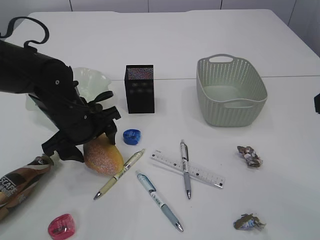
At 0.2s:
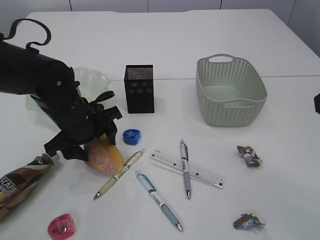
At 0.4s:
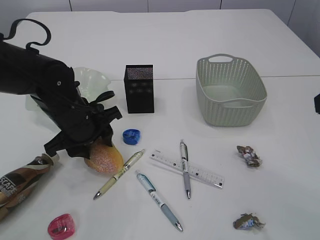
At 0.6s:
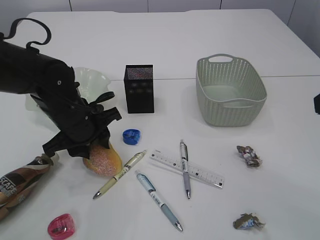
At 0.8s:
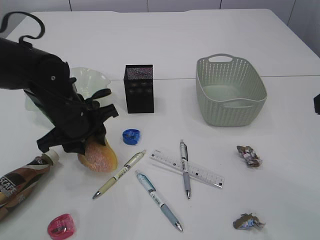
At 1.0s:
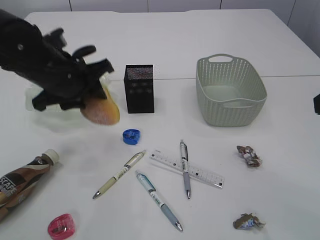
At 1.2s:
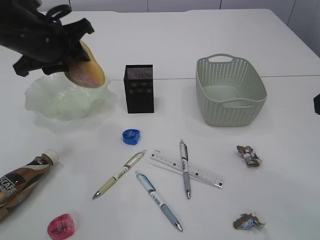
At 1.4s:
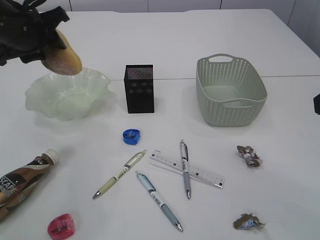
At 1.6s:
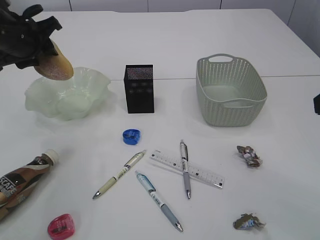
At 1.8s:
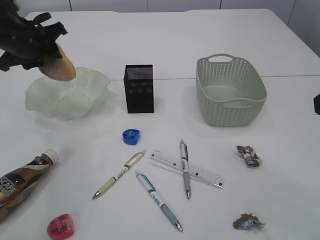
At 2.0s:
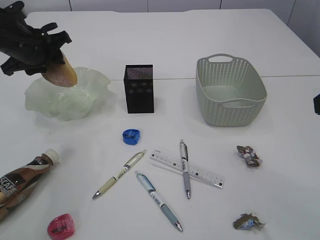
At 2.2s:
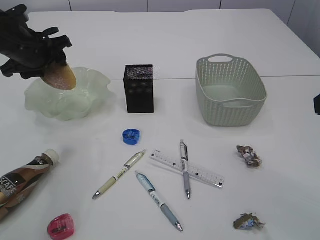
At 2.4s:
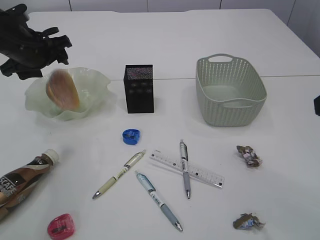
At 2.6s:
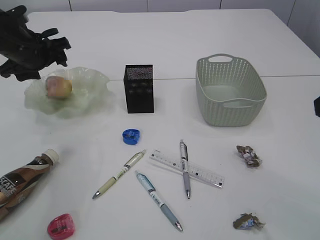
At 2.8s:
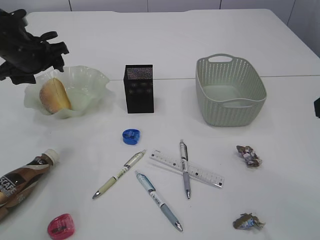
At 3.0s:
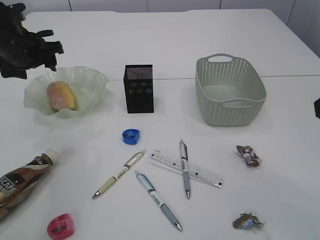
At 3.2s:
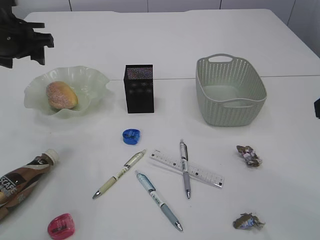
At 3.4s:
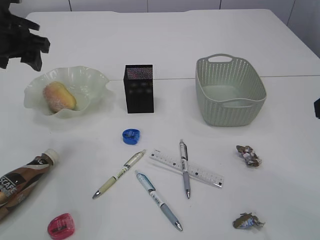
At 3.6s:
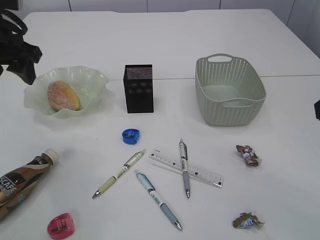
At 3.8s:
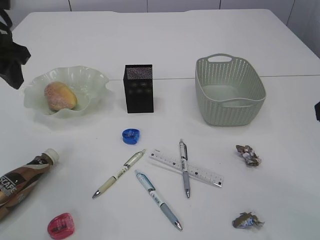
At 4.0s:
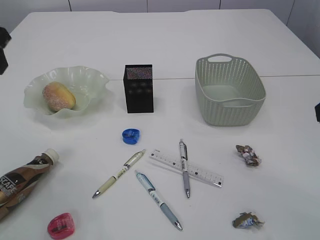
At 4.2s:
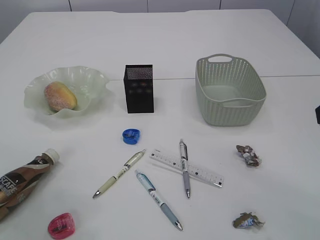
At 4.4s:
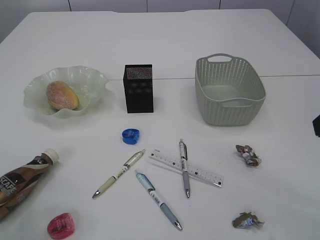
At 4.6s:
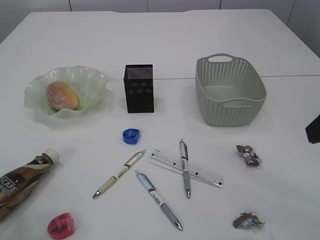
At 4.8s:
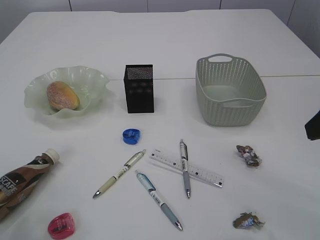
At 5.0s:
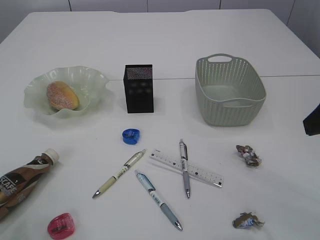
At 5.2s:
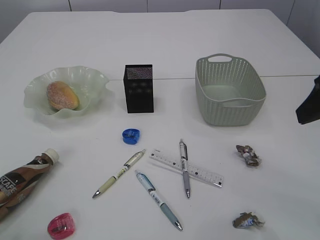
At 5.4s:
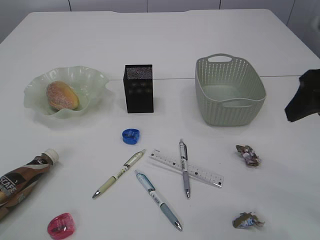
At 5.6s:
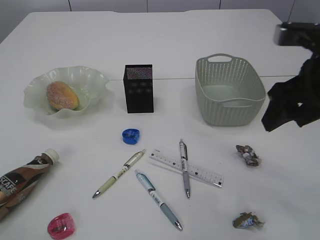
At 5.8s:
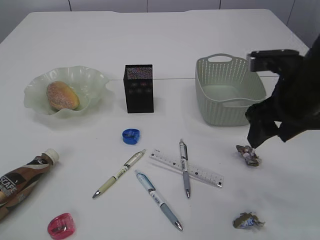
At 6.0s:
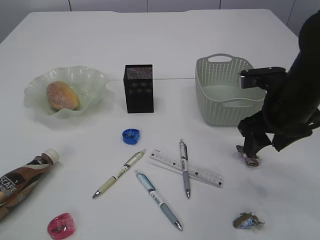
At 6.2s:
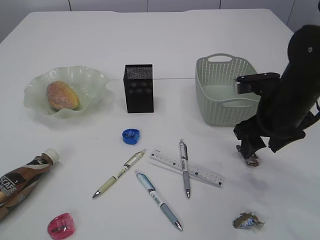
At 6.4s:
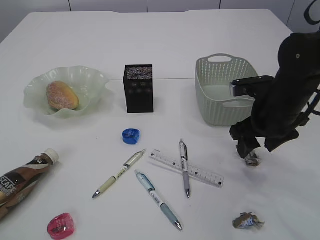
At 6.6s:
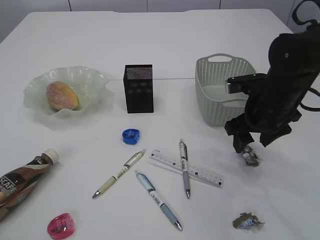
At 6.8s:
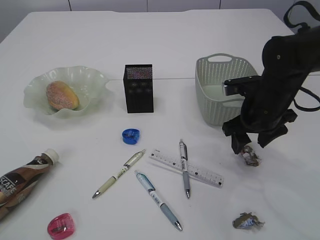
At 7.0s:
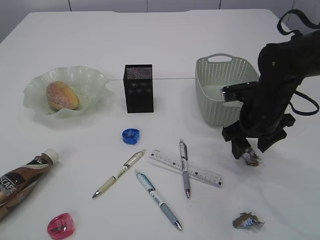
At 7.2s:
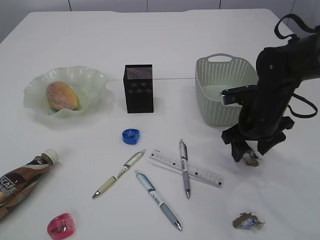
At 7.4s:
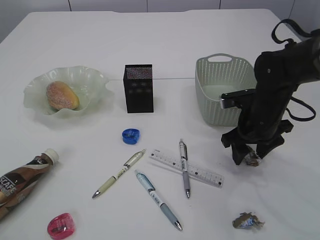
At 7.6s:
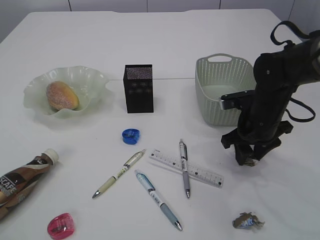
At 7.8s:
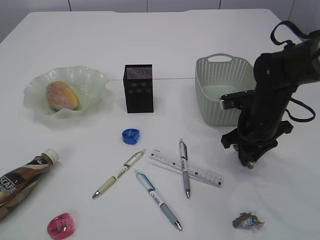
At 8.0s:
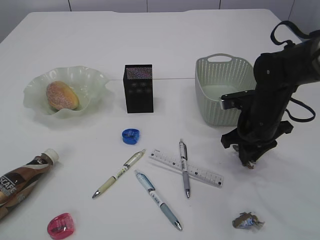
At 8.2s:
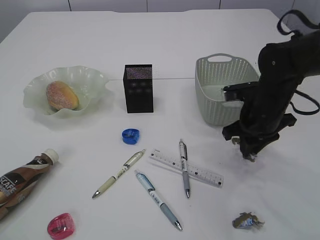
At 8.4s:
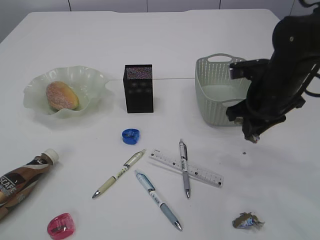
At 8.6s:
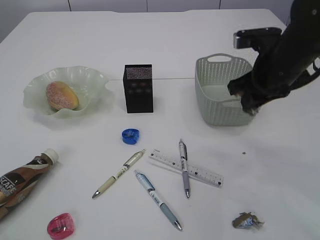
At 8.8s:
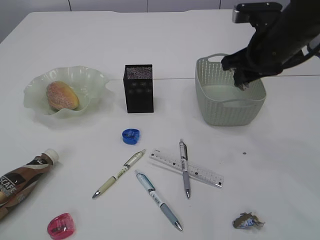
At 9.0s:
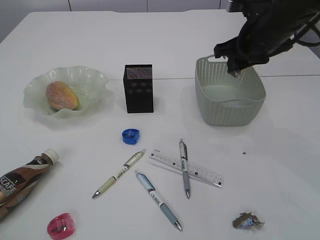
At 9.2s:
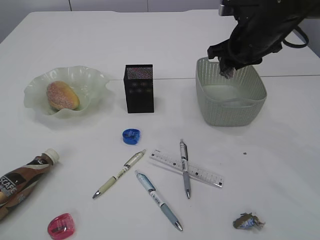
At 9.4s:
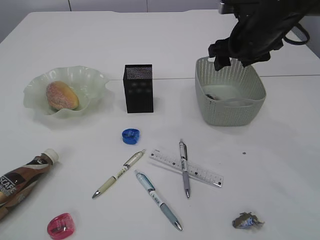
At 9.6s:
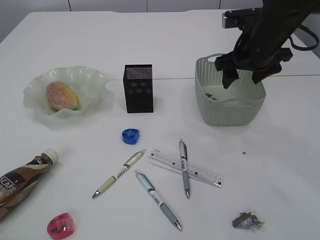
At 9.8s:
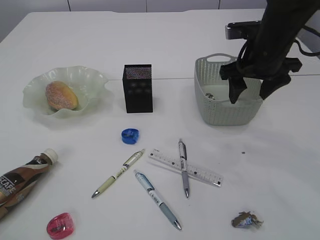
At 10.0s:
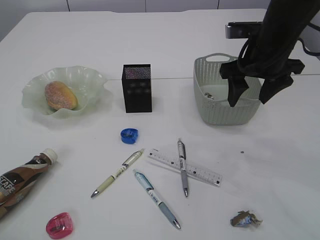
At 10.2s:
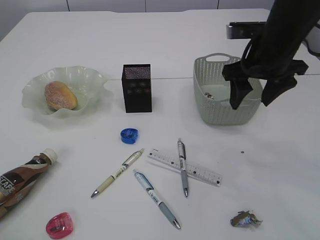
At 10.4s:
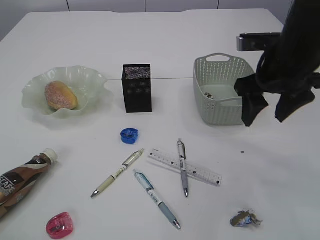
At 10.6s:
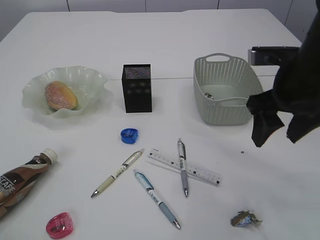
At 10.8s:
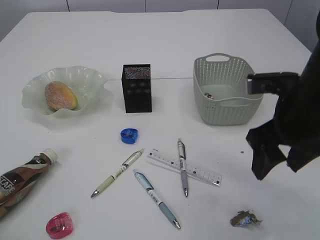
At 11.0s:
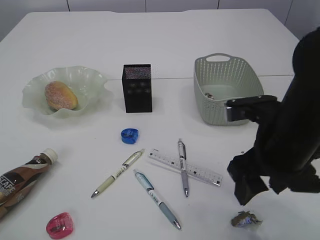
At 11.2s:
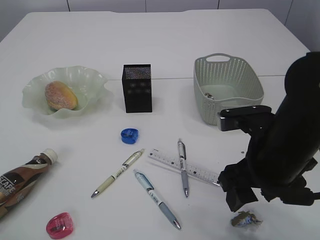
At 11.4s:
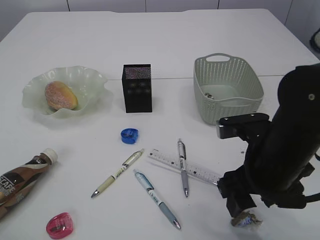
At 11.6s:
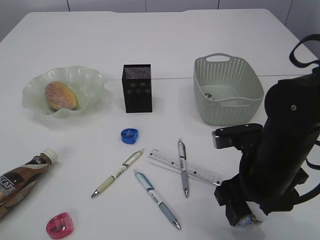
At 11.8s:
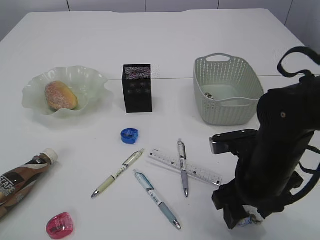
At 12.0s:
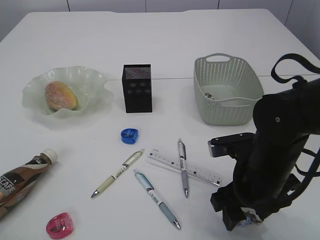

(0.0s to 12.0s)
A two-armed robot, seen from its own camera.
Step, 1.2s - 2.6s: place the bread in the plate.
Step, 2.8s - 8.2s: Pick up the waste paper.
Step, 8.4s - 9.2s: Place the waste paper in the basket.
0.0s - 1.6s: The left gripper is displaced upward, to the left and forward by approximately 15 cm, and closes its fingers.
1.6s - 3.0s: The left gripper opens up.
3.0s - 4.4s: The left gripper moves backward and upward, some 25 cm, and closes up.
4.4s - 6.0s: The right gripper is displaced forward, downward and to the left by approximately 15 cm, while the left gripper shifts some 10 cm backward.
6.0s - 7.6s: The right gripper travels downward and forward by approximately 10 cm.
7.6s - 9.0s: The right gripper travels upward by roughly 15 cm, and closes.
9.0s - 10.4s: The right gripper is displaced backward by approximately 5 cm, and opens its fingers.
10.4s - 12.0s: The right gripper heads downward, backward and to the left, covering about 15 cm.

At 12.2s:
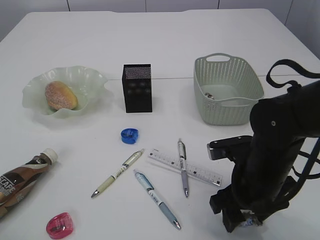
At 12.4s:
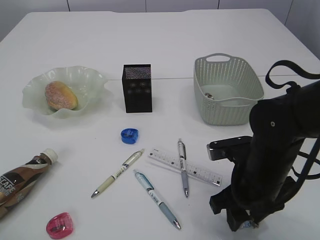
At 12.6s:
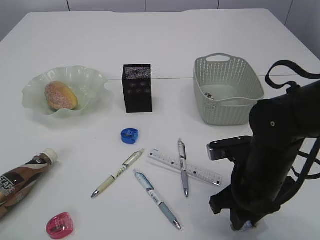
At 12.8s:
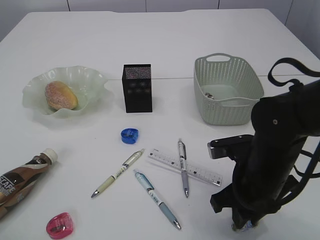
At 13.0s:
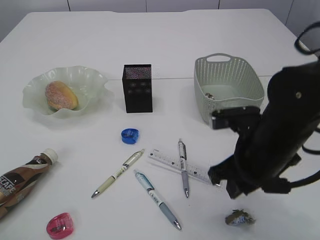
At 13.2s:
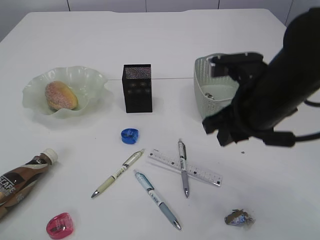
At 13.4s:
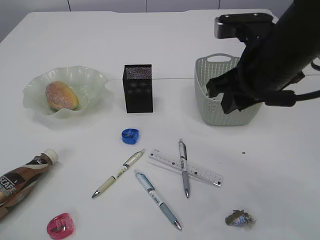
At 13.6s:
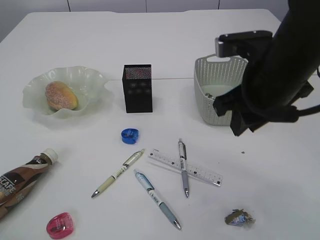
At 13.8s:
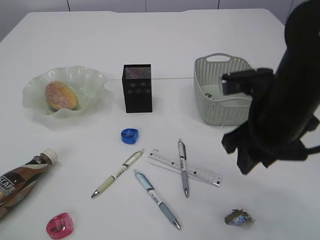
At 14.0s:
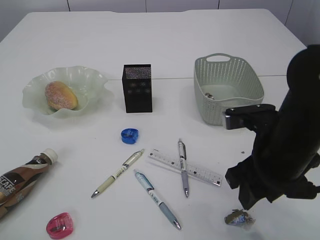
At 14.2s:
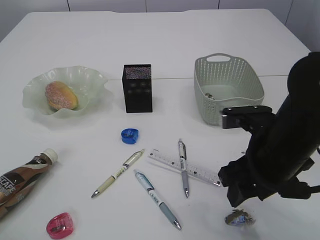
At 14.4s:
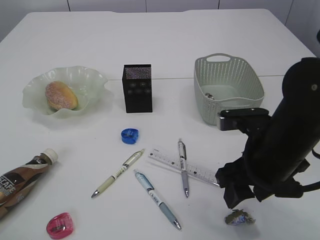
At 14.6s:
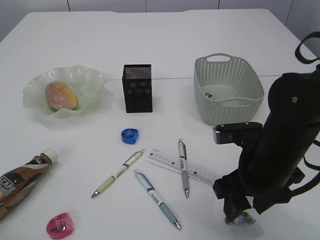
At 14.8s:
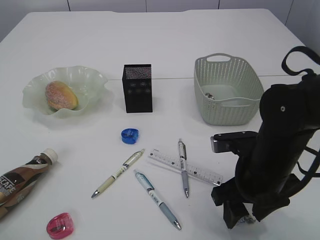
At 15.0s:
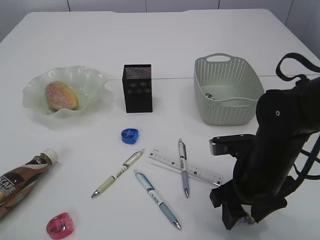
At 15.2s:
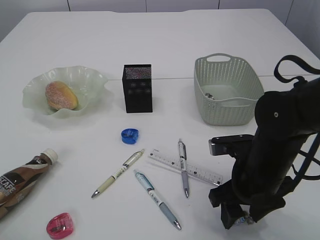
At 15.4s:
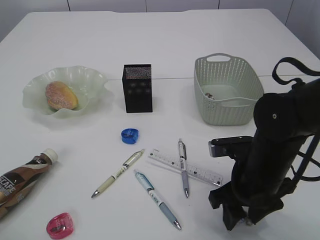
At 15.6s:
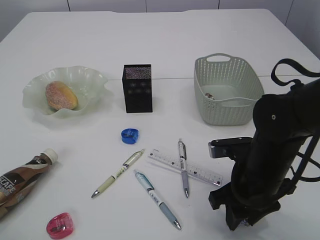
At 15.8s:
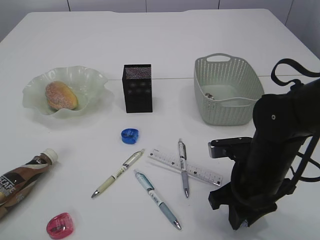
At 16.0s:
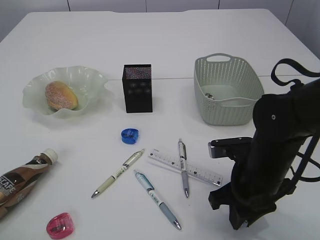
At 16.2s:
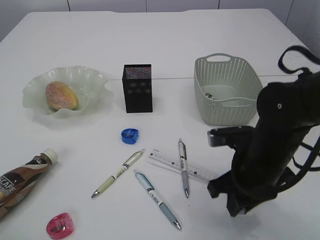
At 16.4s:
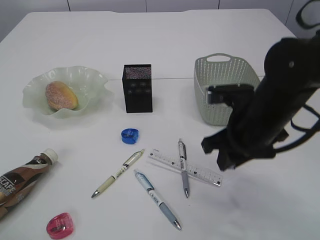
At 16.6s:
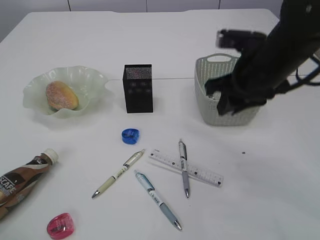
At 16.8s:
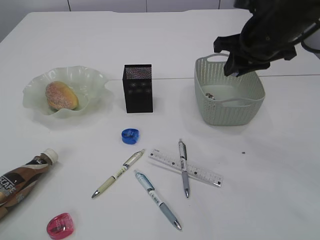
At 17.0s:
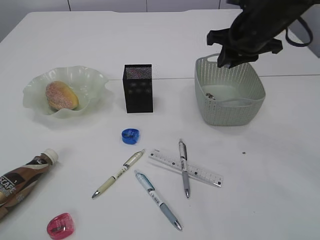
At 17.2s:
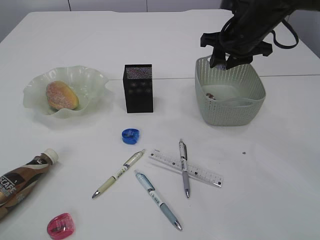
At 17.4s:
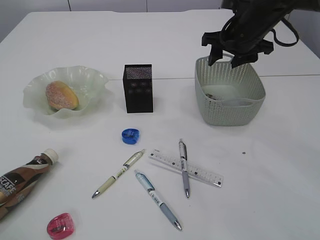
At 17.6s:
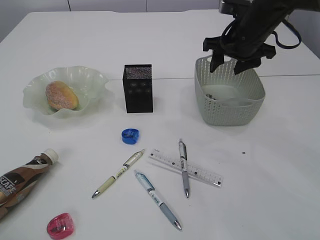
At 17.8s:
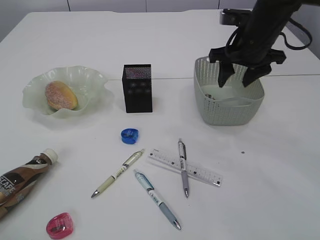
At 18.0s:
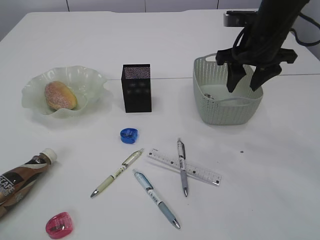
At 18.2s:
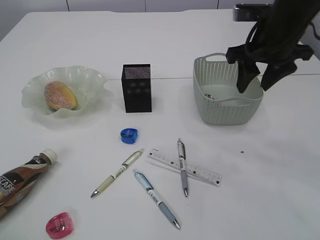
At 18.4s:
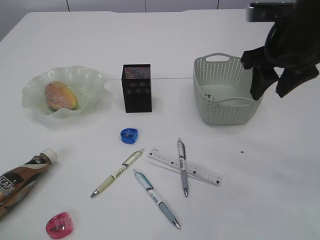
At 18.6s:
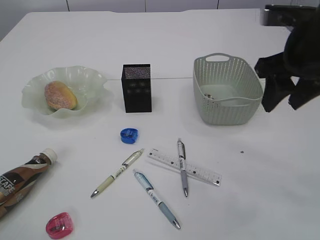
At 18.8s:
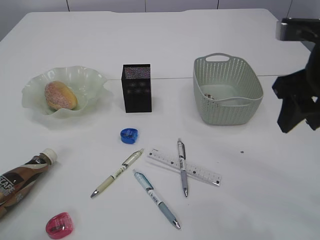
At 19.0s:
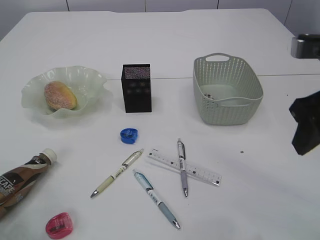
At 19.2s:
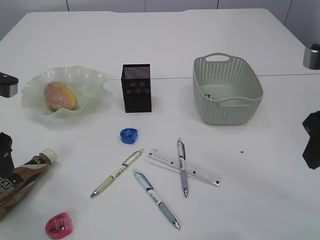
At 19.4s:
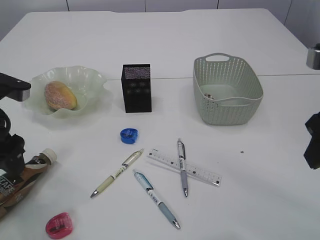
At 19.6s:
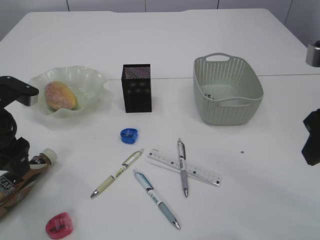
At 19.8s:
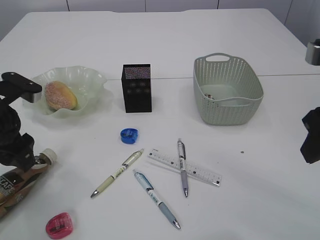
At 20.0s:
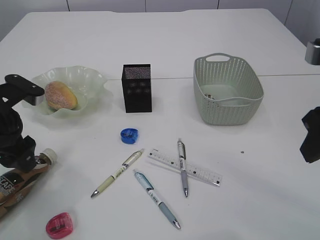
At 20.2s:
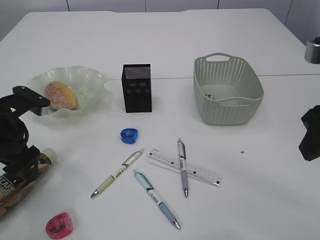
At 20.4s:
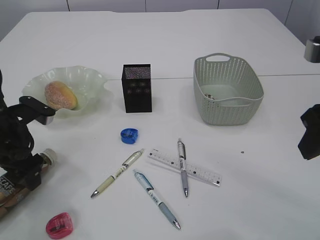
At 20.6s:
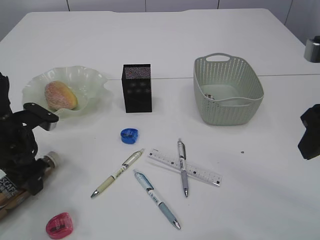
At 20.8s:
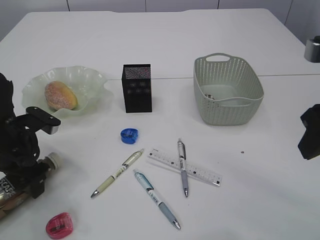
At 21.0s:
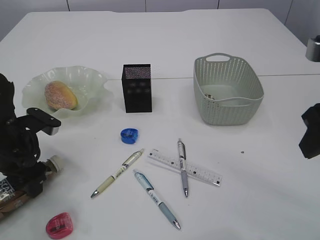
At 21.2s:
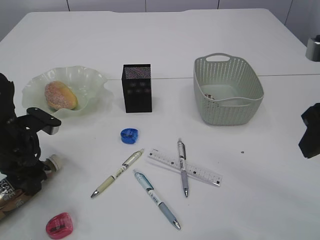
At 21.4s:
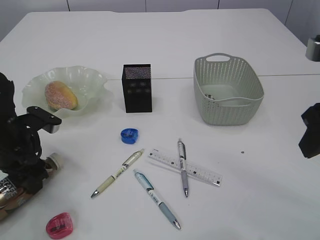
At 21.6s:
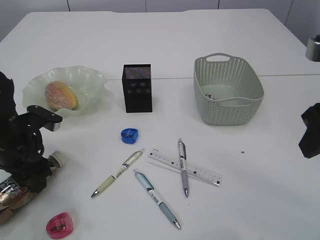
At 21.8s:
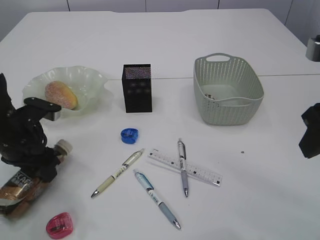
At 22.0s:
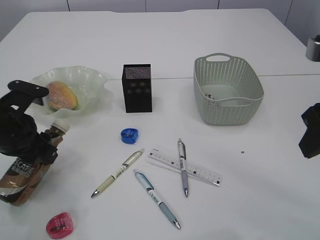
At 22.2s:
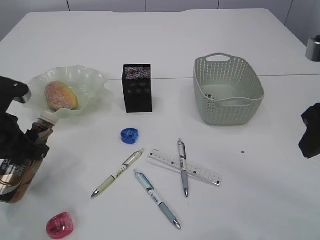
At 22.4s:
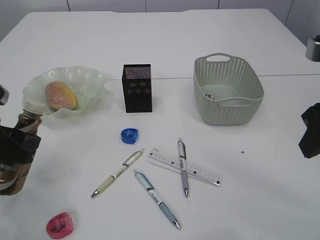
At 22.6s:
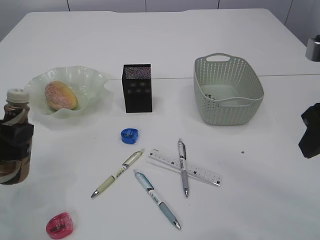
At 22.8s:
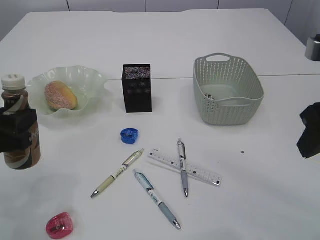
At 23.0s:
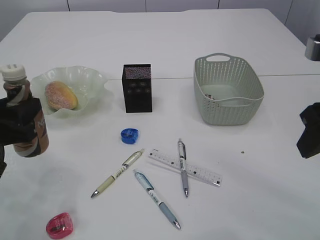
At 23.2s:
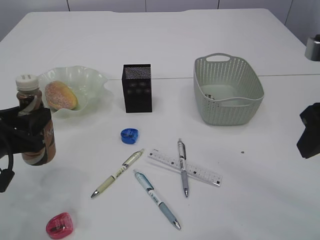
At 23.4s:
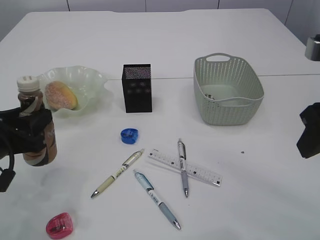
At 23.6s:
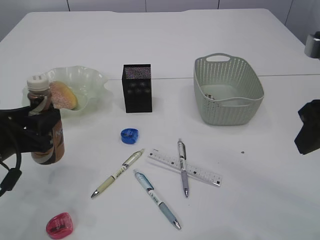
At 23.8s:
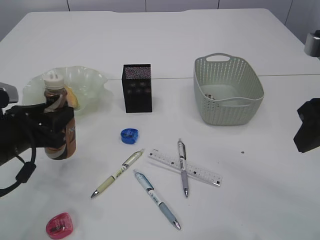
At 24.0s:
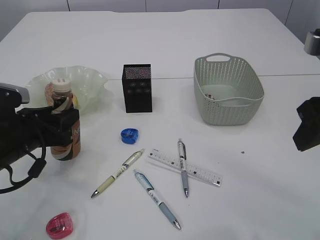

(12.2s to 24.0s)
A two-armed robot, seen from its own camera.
Step, 12.2s - 16.2s: Pick up the waste paper.
Step, 16.4s - 17.8s: Place the waste paper in the basket.
Step, 18.0s - 22.4s: Pick up the bottle with the left arm.
12.2s - 13.6s: The right gripper shifts roughly 15 cm upward, and closes up.
13.6s - 15.2s: The right gripper heads downward, covering roughly 15 cm, and opens up.
15.2s - 16.6s: The right gripper moves upward and forward, some 15 cm, and closes.
16.6s - 18.2s: The right gripper travels forward by some 5 cm, and opens its fingers.
18.2s - 19.6s: The left gripper heads downward and forward, covering approximately 20 cm, and opens up. Meanwhile the right gripper moves backward, about 20 cm.
19.6s - 21.0s: The left gripper travels downward by about 10 cm.
21.0s - 22.6s: The left gripper travels backward and upward by about 10 cm, and closes its fingers.
22.6s - 24.0s: The left gripper heads forward, covering approximately 5 cm.
